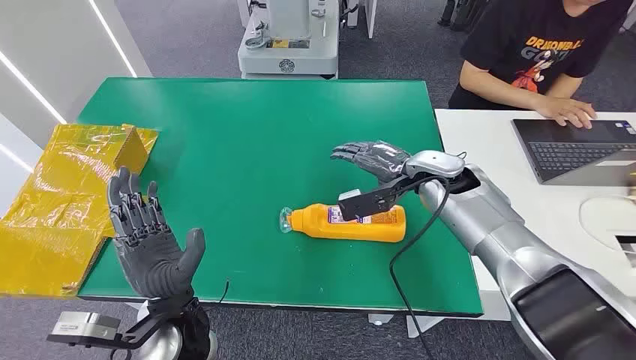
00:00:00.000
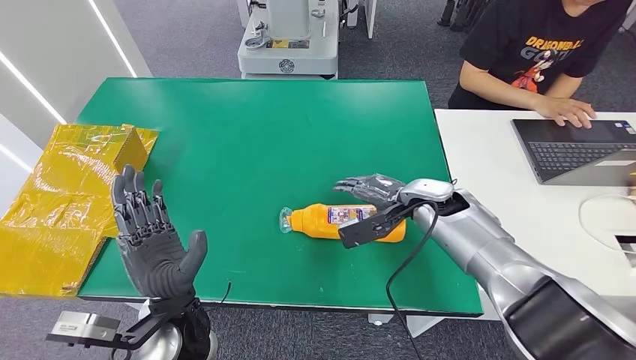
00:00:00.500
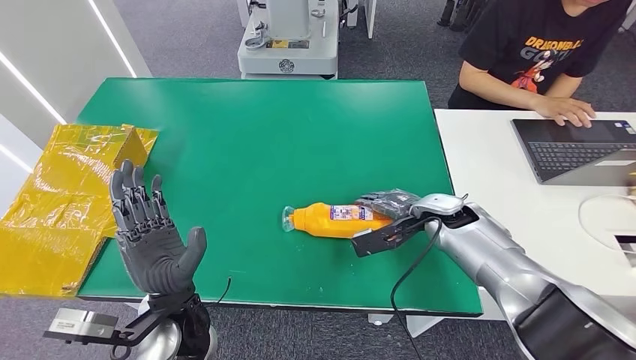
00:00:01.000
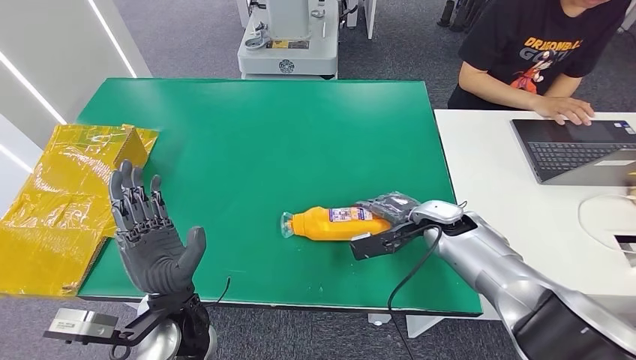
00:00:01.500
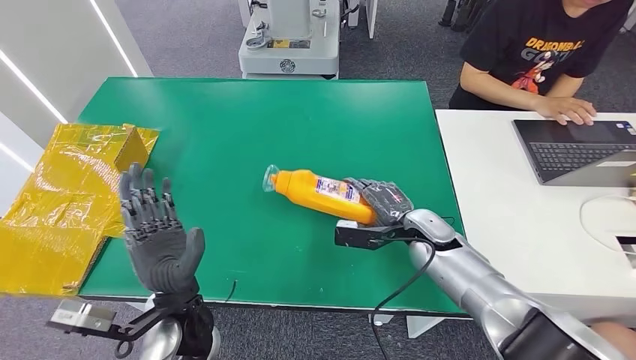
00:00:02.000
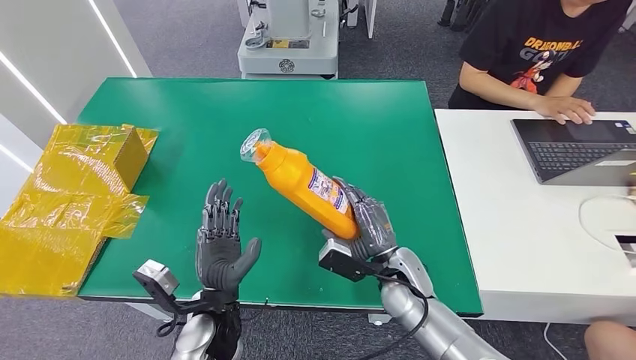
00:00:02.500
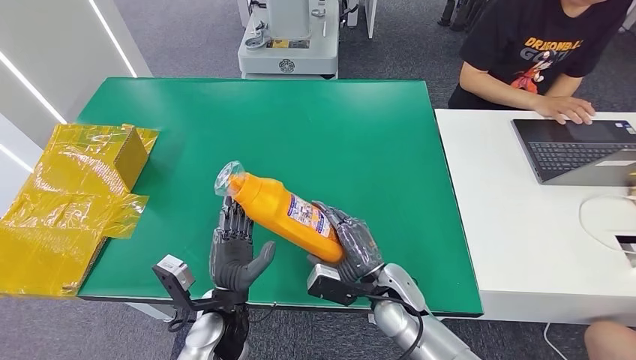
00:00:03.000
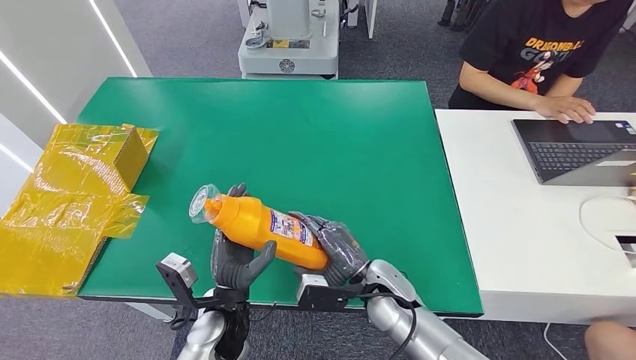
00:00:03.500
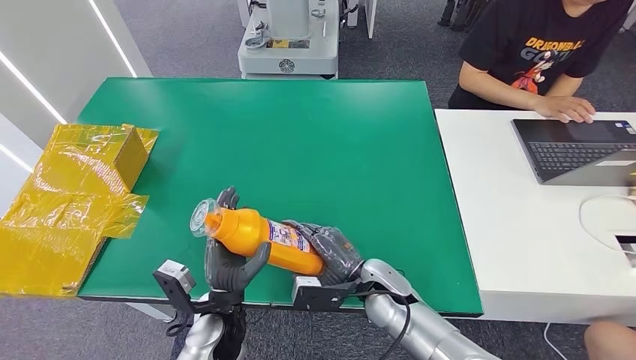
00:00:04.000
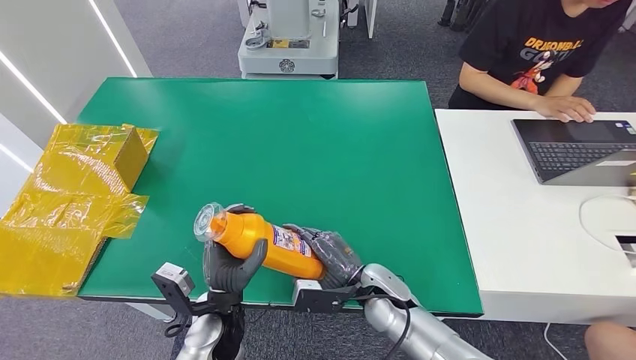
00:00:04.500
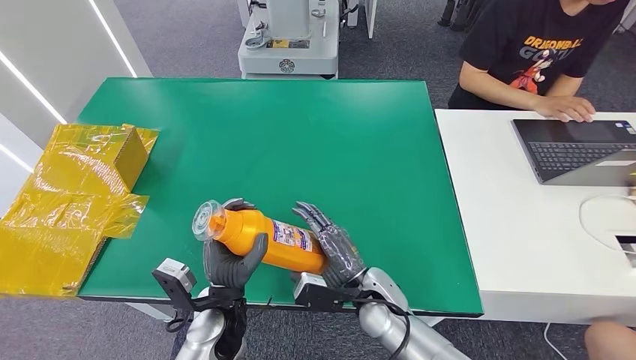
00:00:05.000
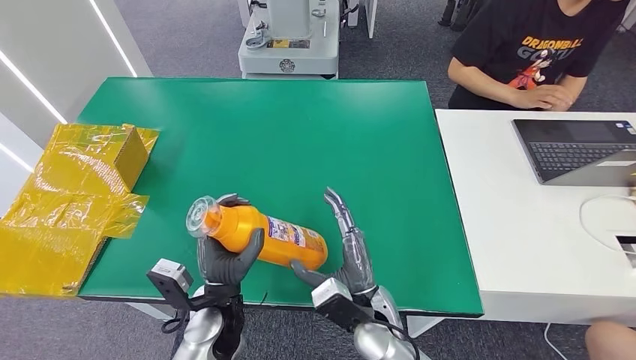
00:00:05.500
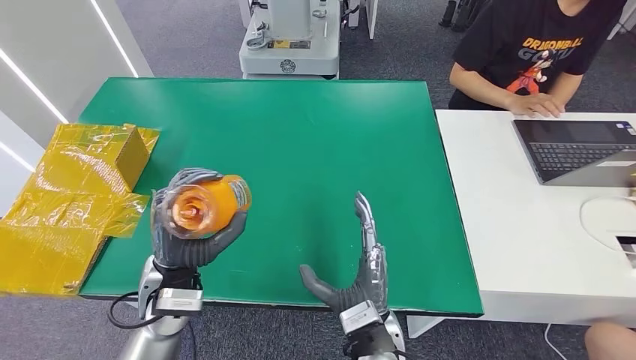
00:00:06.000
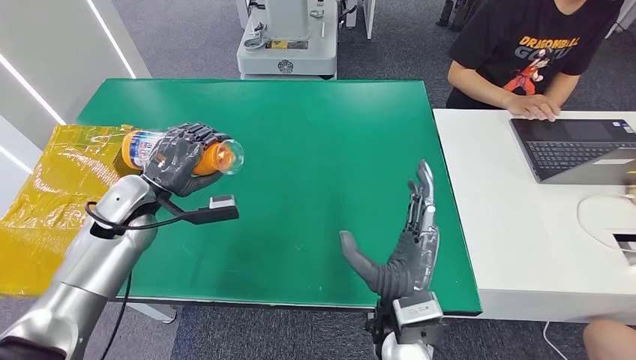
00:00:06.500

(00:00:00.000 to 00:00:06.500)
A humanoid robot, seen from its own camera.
Step, 00:00:00.000 - 00:00:02.500: Pick up the bottle from the table.
Step, 00:00:03.000 - 00:00:06.500: Turn the bottle to the front side.
00:00:02.000 - 00:00:04.500: The left hand travels downward by about 10 cm. The right hand heads to the left, backward and downward, covering approximately 15 cm.

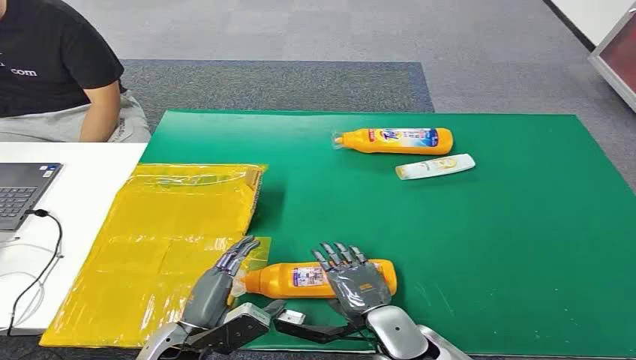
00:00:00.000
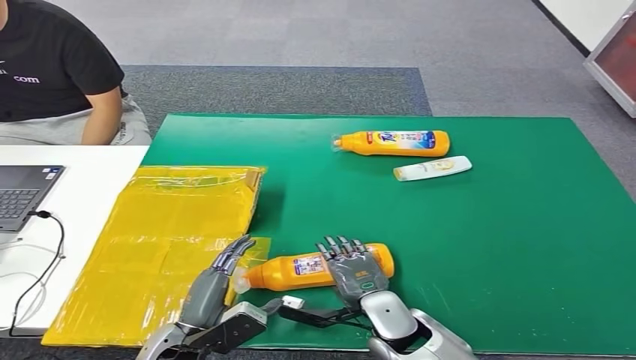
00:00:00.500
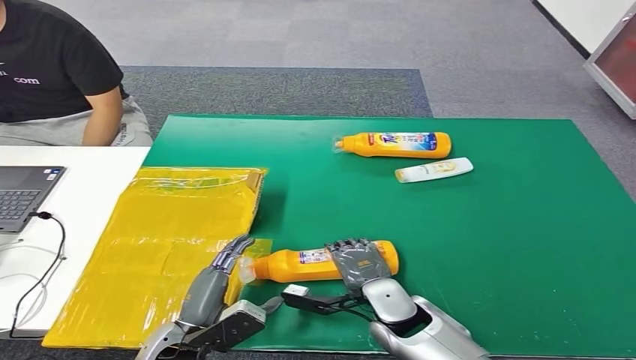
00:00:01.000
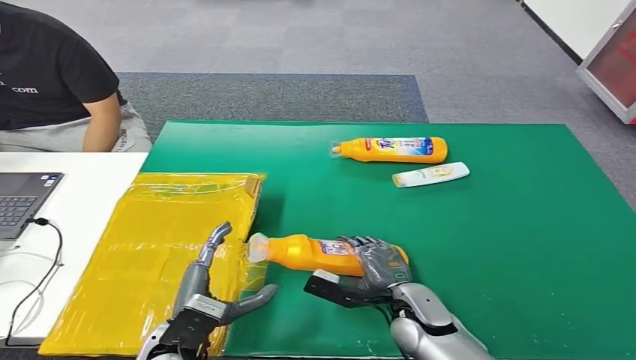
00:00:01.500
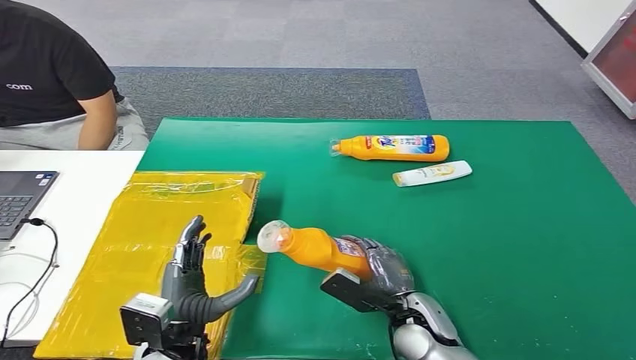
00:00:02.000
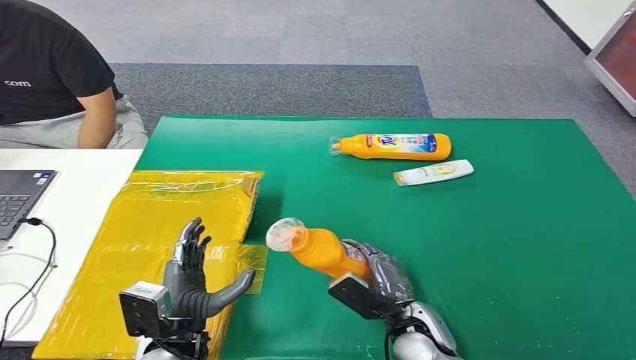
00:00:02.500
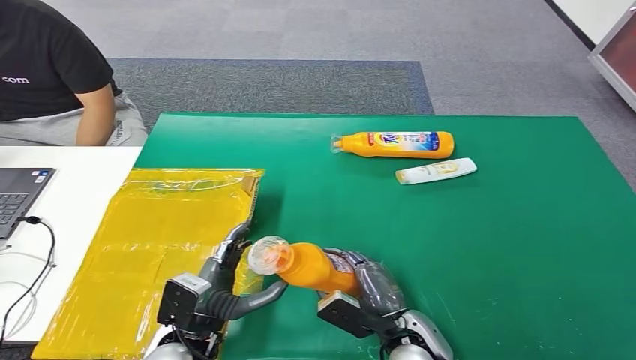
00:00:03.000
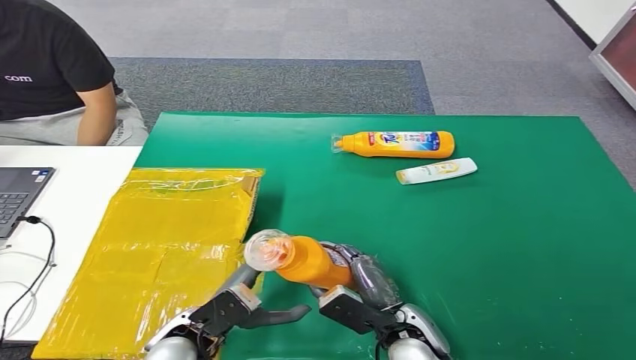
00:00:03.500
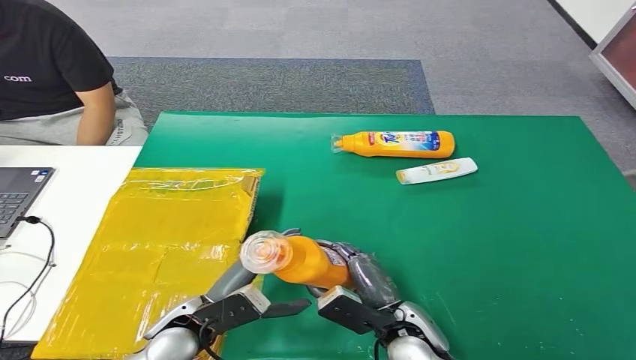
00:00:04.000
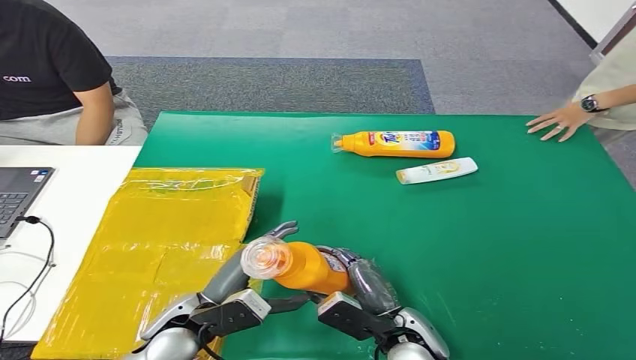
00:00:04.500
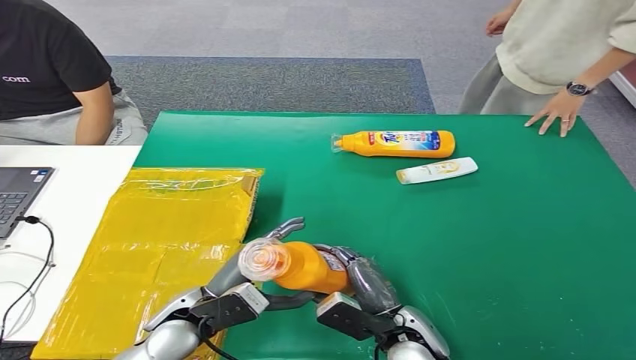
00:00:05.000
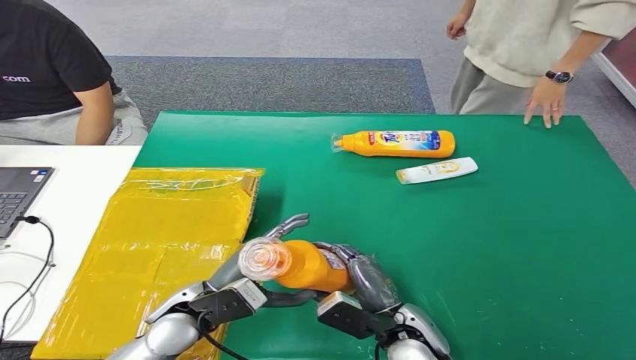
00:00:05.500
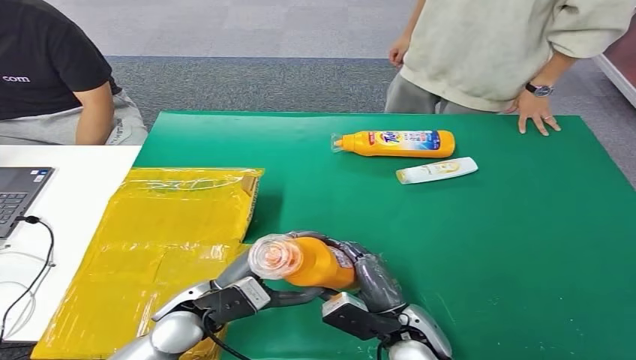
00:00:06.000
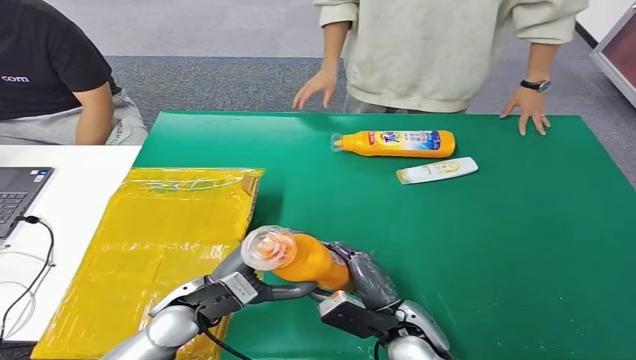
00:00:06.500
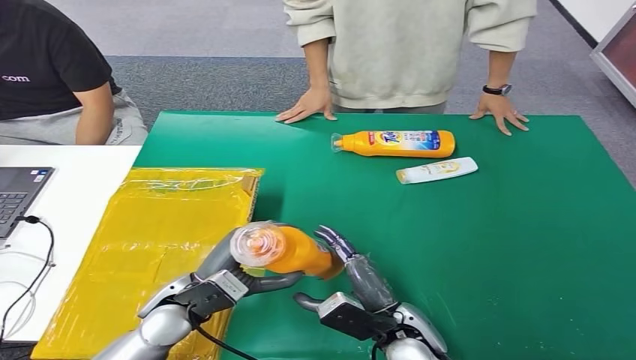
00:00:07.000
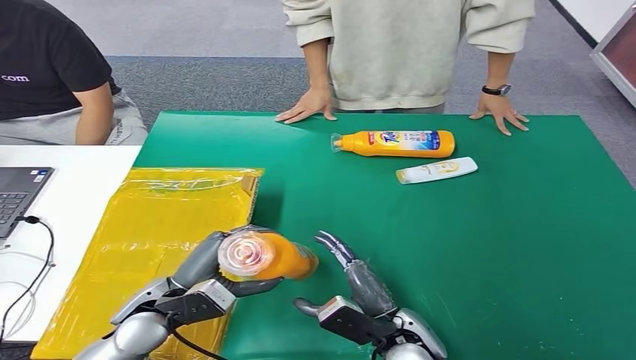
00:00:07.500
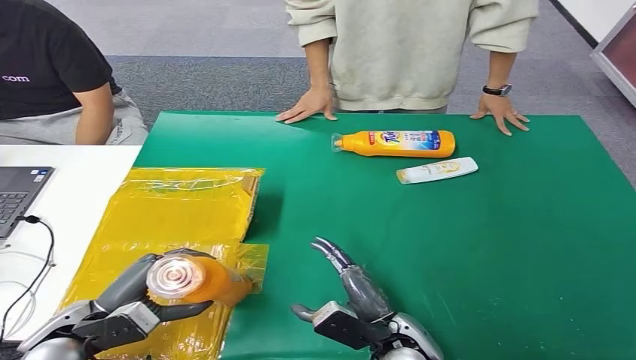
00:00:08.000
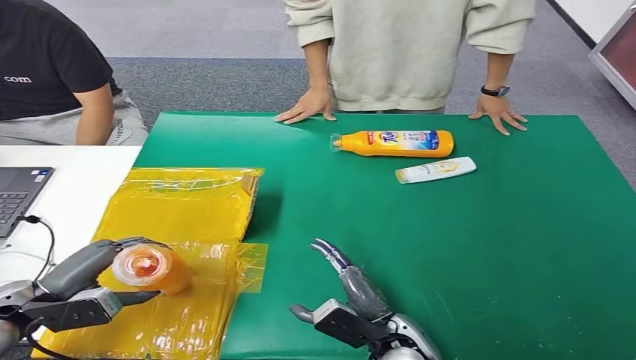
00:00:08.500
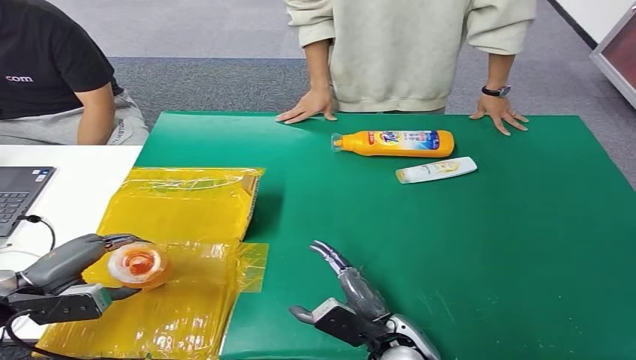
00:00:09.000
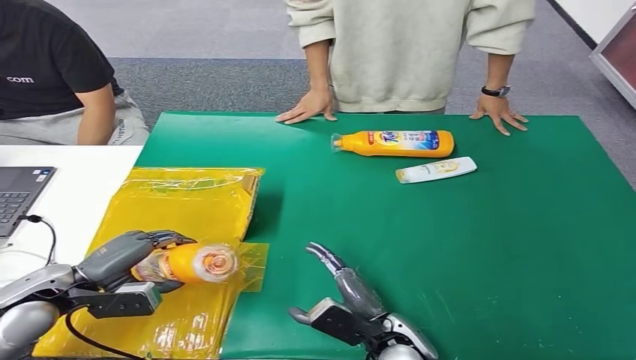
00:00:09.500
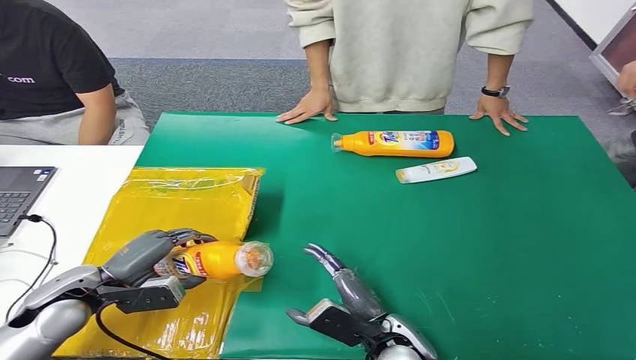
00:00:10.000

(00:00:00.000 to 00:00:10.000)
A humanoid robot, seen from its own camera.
Step, 00:00:00.000 - 00:00:02.000: Pick up the bottle from the table.
00:00:04.000 - 00:00:06.000: The hands move only a little.
00:00:08.000 - 00:00:10.000: The left hand moves forward, roughly 5 cm, and goes to the left and returns, roughly 10 cm each way.

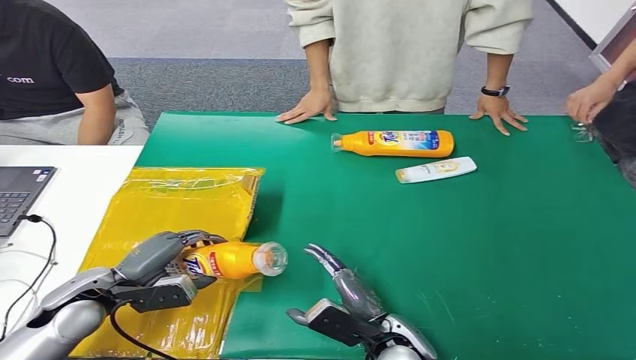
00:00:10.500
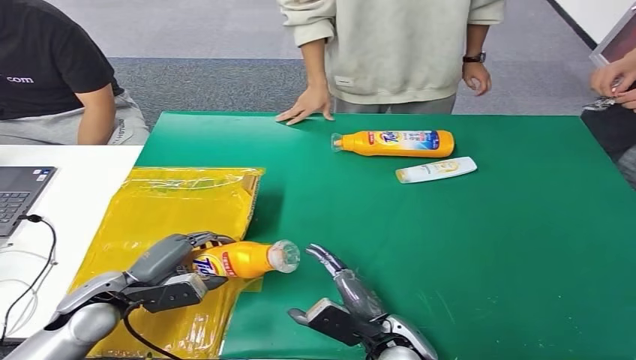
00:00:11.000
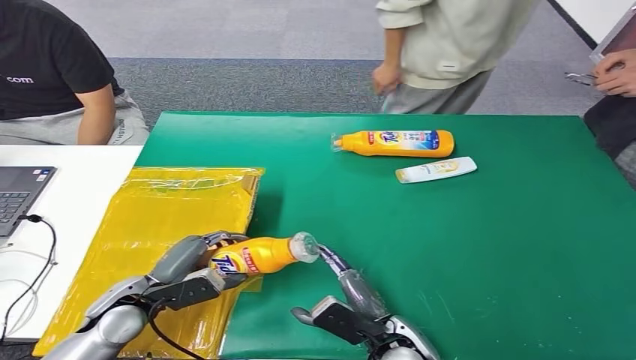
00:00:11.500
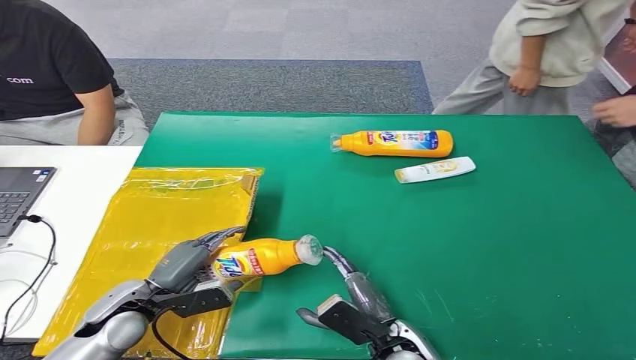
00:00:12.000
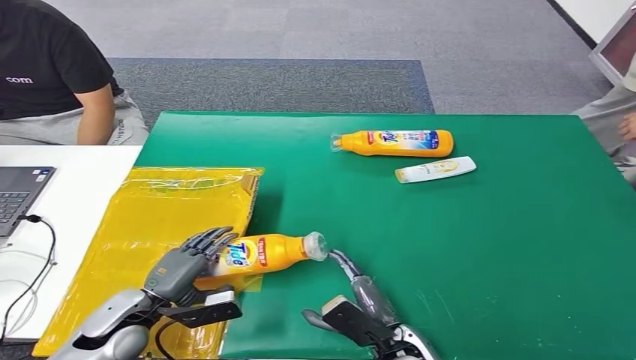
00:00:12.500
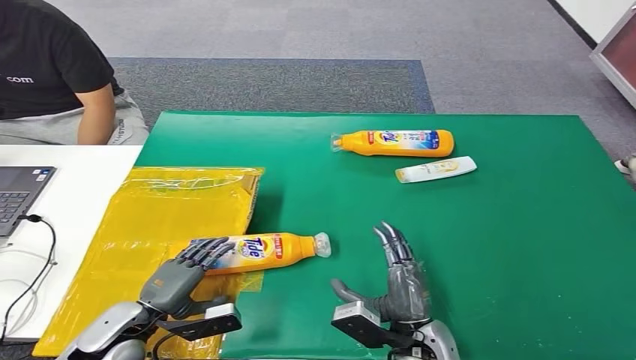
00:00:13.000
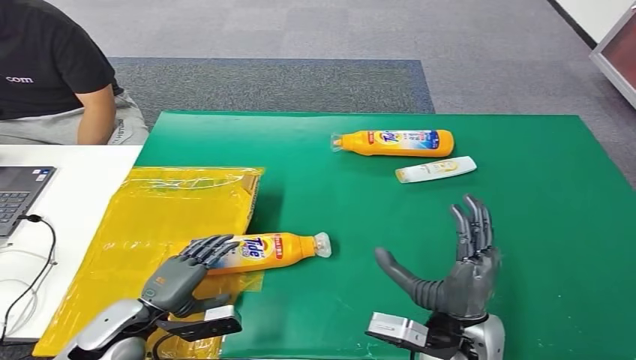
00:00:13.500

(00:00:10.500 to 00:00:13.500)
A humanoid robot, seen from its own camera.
Step, 00:00:10.500 - 00:00:13.500: Turn the bottle to the front side.
00:00:12.000 - 00:00:13.500: The right hand heads upward, covering about 10 cm.
